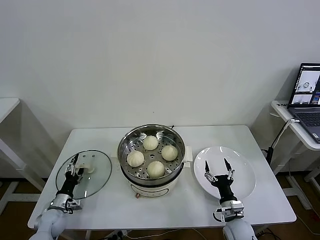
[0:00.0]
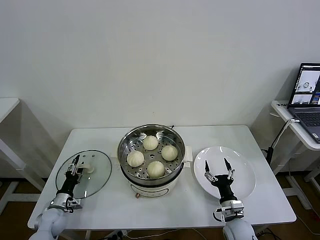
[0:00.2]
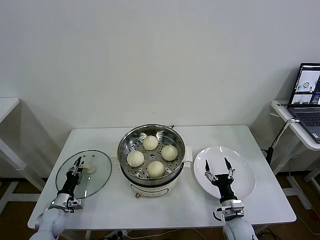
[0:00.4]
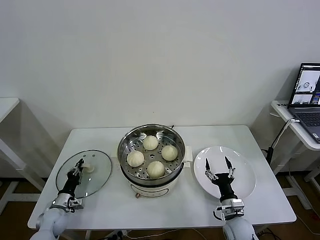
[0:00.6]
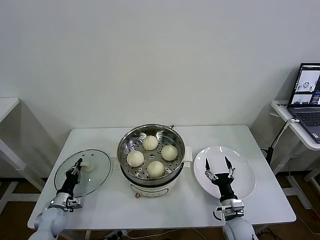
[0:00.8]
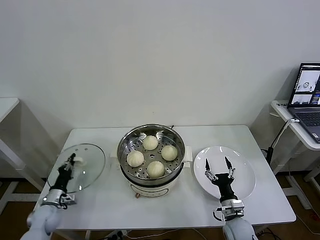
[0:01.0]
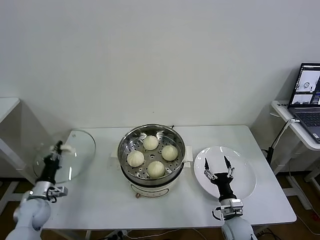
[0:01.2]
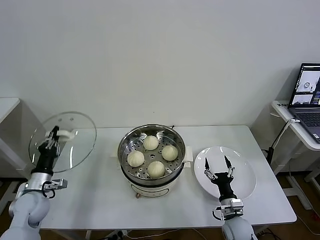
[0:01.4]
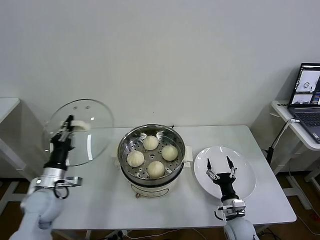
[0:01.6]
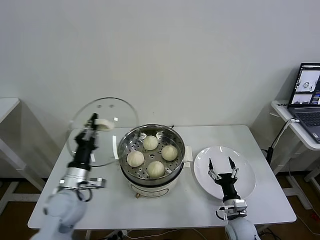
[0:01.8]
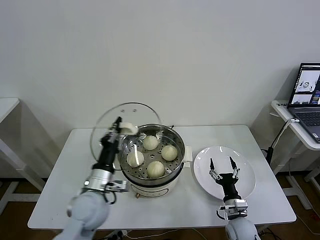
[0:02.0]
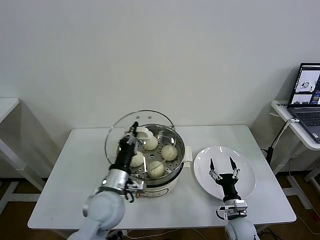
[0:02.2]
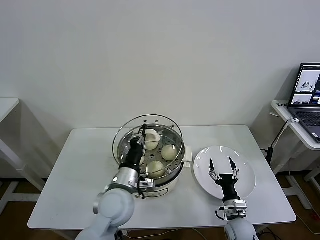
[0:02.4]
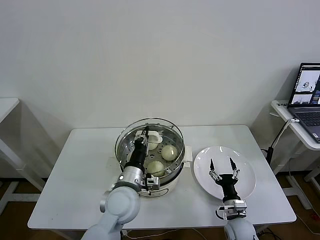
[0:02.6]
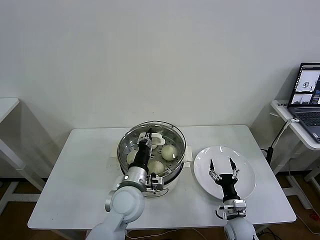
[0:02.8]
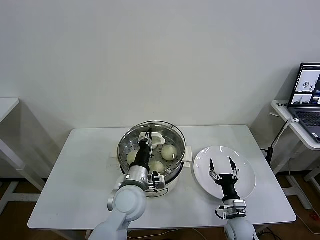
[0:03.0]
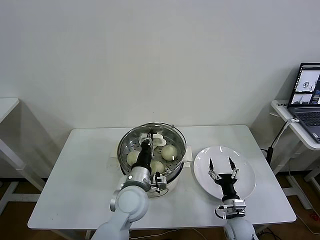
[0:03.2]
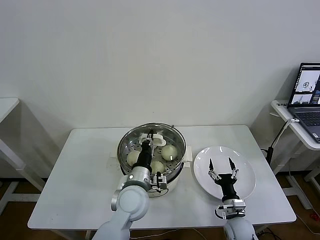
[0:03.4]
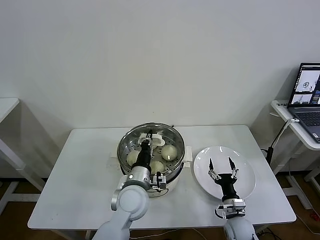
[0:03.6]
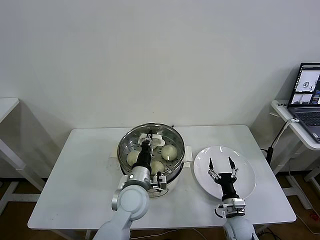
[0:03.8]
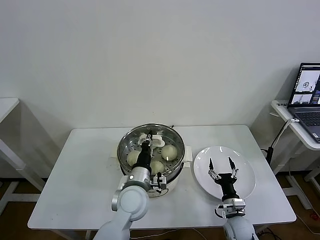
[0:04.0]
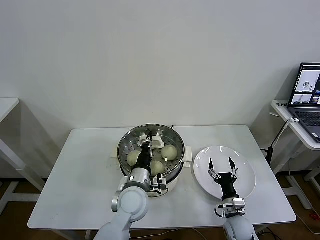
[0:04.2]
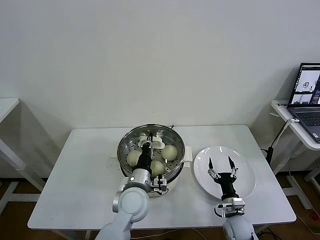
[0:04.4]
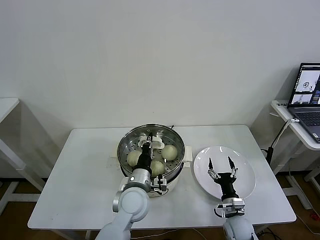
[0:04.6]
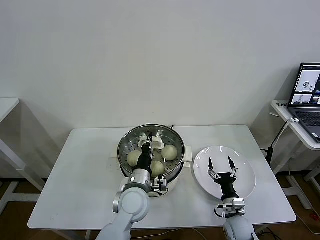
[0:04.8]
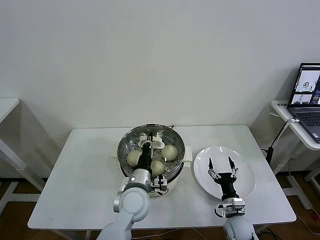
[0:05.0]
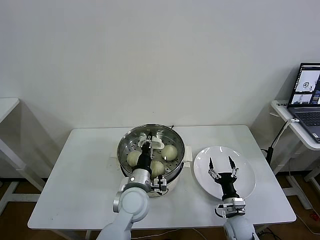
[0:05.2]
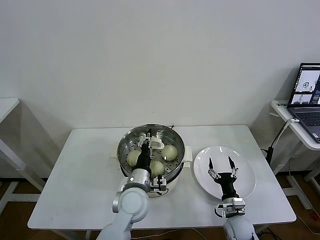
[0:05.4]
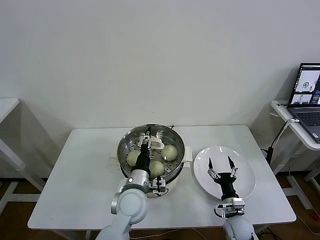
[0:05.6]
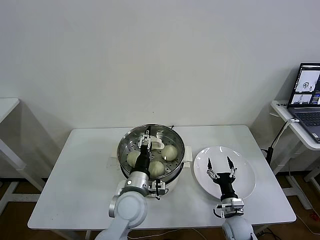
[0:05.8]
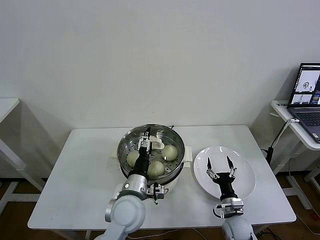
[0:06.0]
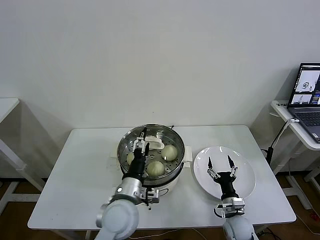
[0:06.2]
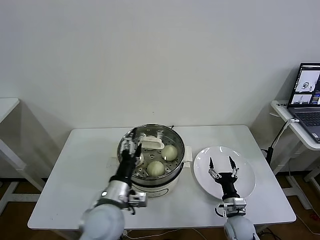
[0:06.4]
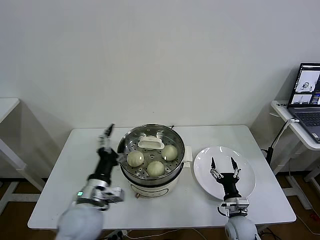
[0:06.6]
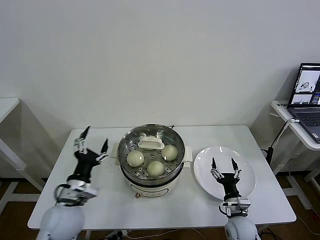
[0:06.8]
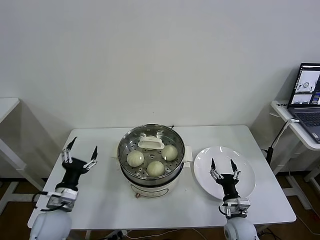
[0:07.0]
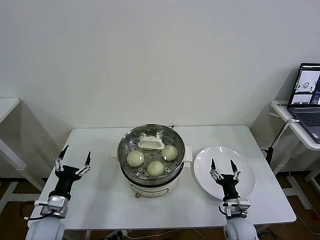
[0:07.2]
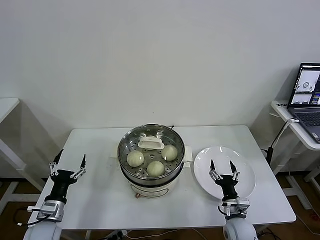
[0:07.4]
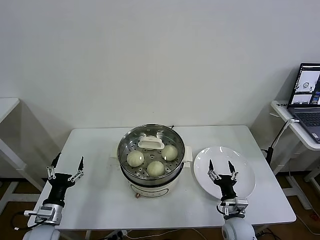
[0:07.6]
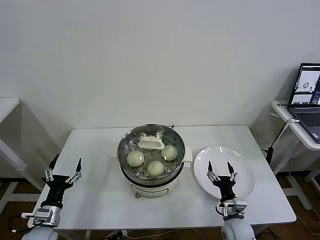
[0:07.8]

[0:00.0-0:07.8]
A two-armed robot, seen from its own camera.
Task of the whole recording: take steamed baozi put them in steamer then cover it.
Step, 0:01.0 to 0:05.6: Place the pot lid on the steamer with left gripper.
0:00.0 to 0:01.6: The left gripper shifts some 20 cm upward, and closes.
0:01.6 to 0:03.2: The left gripper is displaced to the right by approximately 30 cm.
0:03.2 to 0:04.6: There are only small adjustments of the grippers.
0:04.6 to 0:06.2: The left gripper changes place by about 5 cm, and opens.
0:06.2 to 0:07.8: The left gripper shifts about 30 cm to the left and downward.
